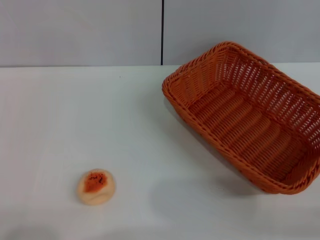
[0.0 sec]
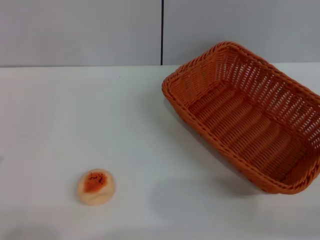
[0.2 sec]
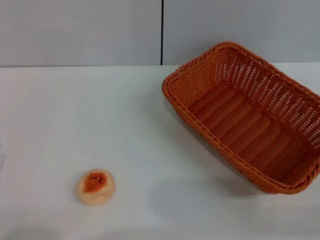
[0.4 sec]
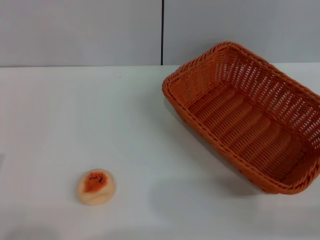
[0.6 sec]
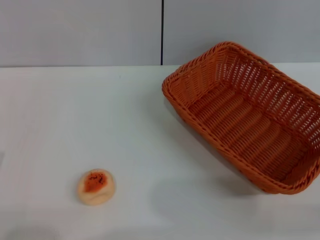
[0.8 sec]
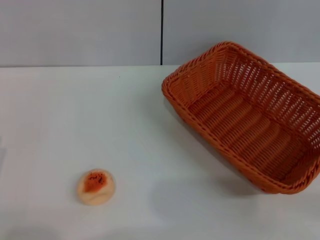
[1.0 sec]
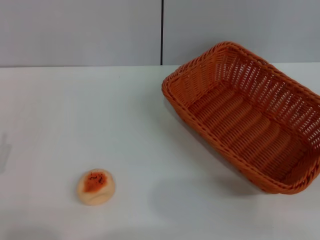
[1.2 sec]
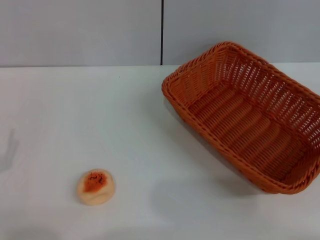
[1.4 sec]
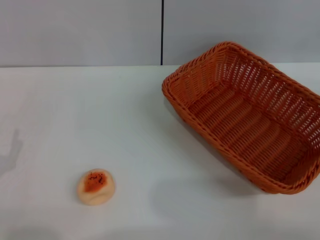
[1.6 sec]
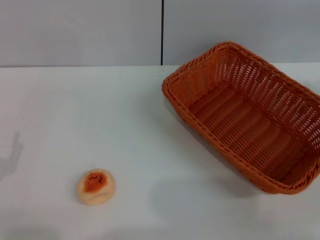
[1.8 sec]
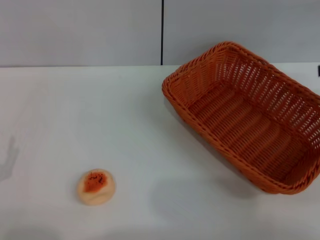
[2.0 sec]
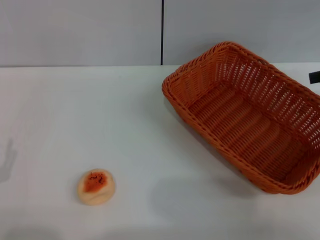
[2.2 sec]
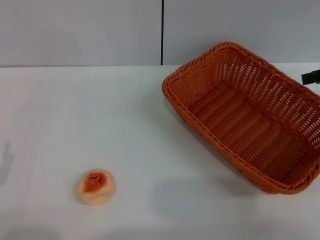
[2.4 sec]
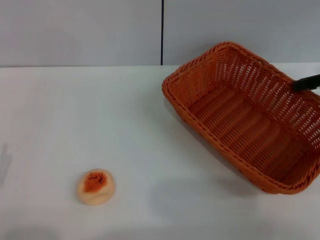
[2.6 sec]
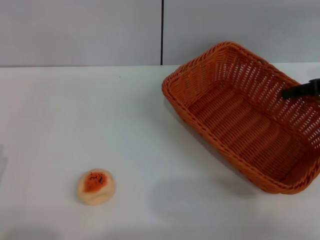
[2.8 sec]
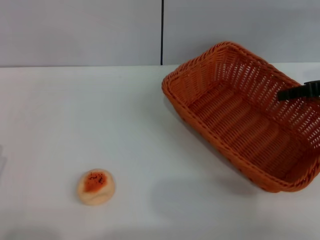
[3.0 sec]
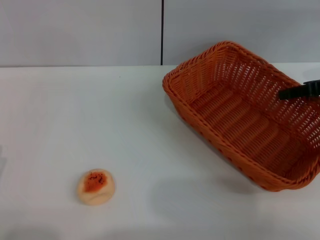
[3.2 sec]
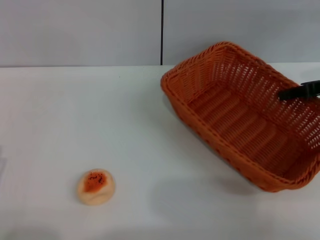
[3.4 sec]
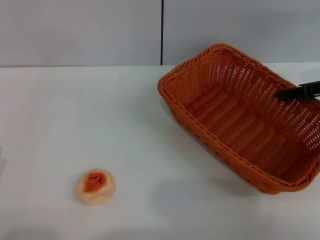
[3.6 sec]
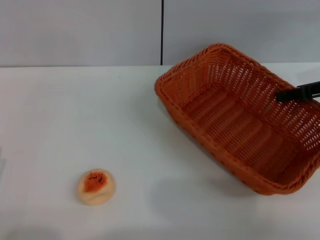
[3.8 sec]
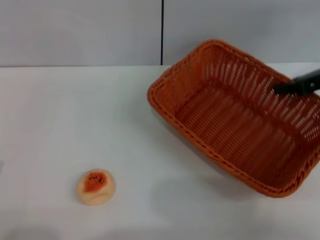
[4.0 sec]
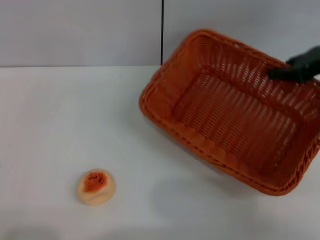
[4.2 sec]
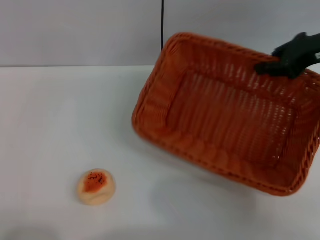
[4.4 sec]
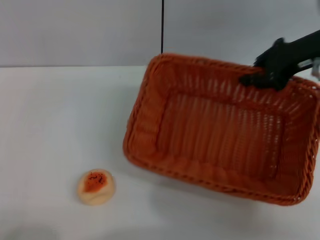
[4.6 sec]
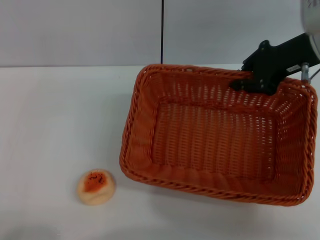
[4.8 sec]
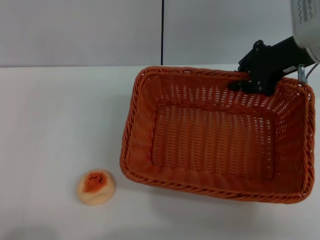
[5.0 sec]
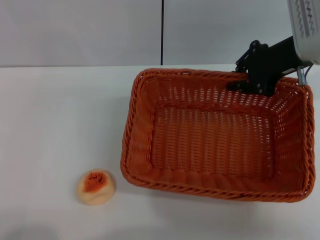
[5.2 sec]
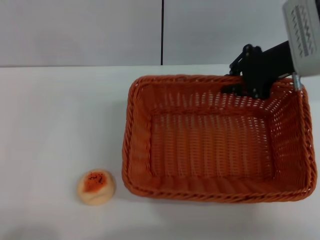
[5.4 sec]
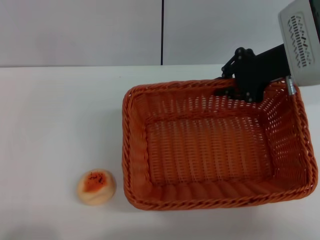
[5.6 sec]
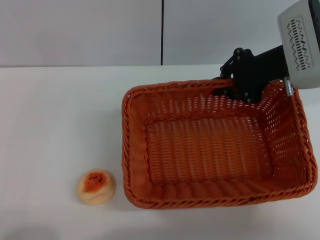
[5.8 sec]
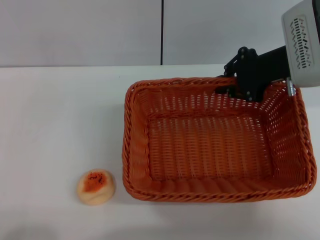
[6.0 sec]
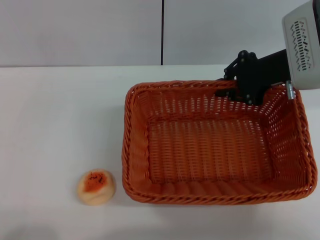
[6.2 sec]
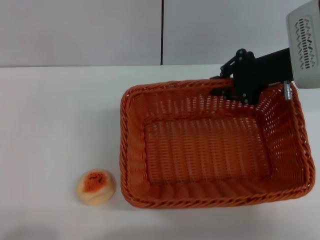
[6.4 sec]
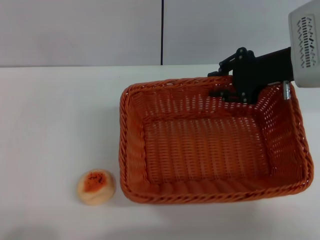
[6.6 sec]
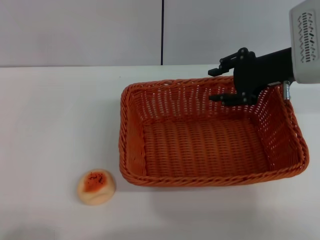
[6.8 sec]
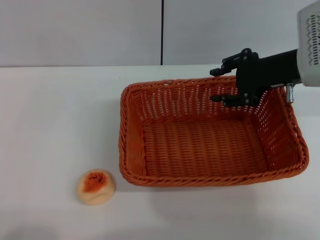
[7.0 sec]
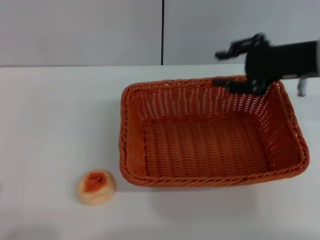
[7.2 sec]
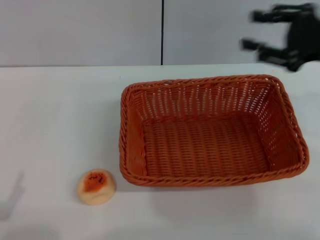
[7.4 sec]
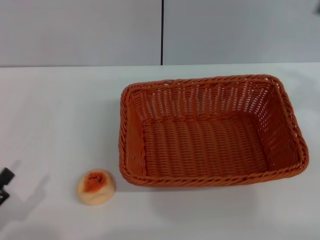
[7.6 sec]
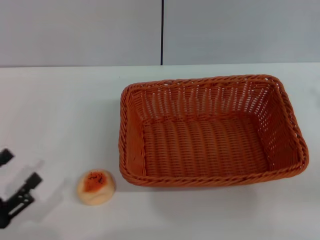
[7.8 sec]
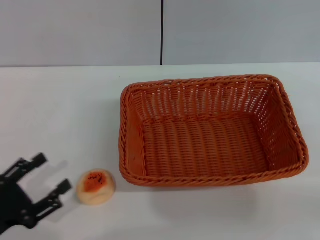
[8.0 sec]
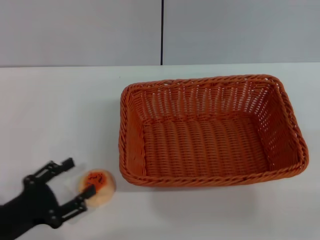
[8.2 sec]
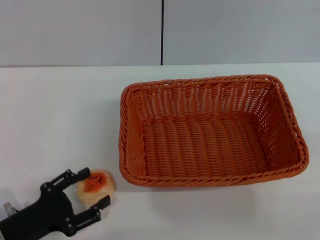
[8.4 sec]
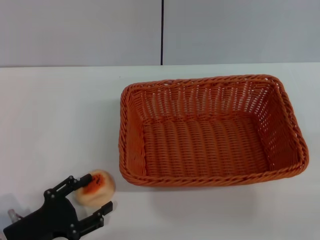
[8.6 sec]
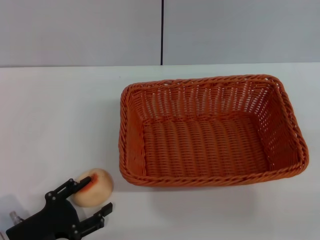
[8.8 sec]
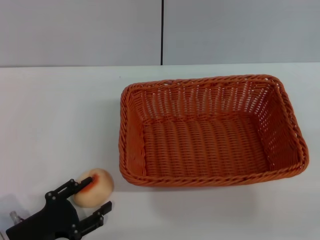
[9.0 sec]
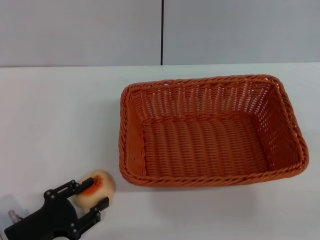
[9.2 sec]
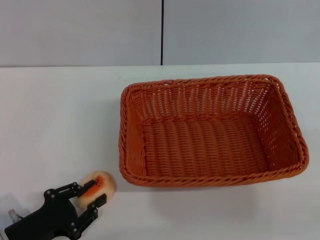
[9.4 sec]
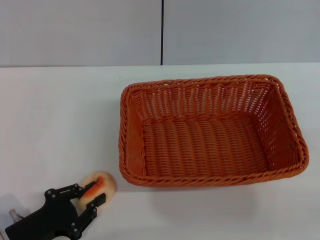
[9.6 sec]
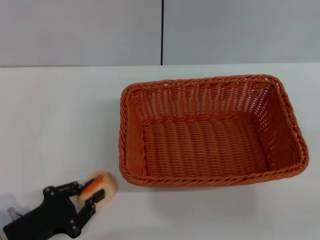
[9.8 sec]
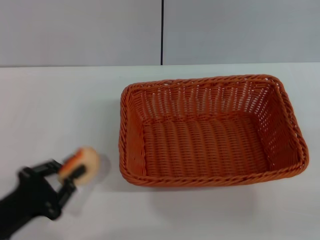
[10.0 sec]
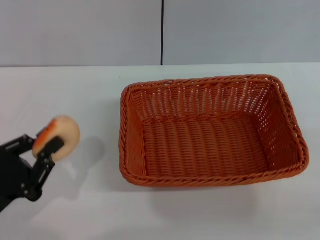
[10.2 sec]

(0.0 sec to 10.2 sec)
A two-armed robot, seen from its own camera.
Step, 0.0 sec - 7.0 sec: Move the basket to the center of view with the right gripper.
Step, 7.2 sec - 9.8 sec: Pick up the egg yolk pastry with the left gripper.
1.4 sec - 3.0 sec: The right gripper shifts approximately 15 cm to the left and forward.
3.0 sec - 4.4 sec: The right gripper heads upward and to the left, covering roughly 10 cm, and closes its fingers.
4.4 sec - 5.8 sec: The right gripper travels to the left by approximately 5 cm.
5.8 sec - 7.2 sec: The right gripper changes place by approximately 5 cm, and opens.
7.2 sec - 8.8 sec: The left gripper heads forward and to the right, covering approximately 10 cm. The right gripper is displaced backward and to the right by roughly 25 cm.
8.8 sec - 10.2 sec: The left gripper shifts about 5 cm upward, and closes up.

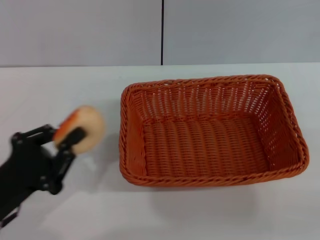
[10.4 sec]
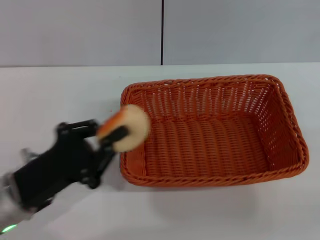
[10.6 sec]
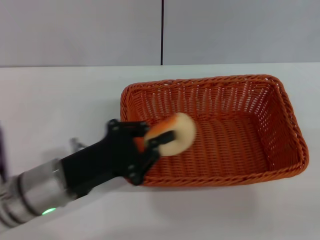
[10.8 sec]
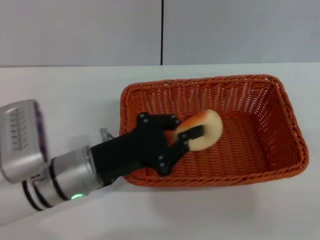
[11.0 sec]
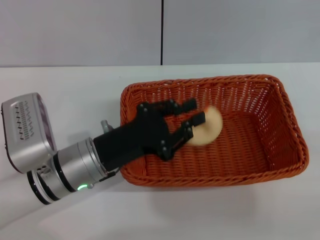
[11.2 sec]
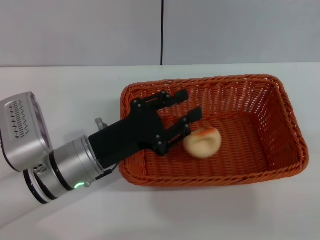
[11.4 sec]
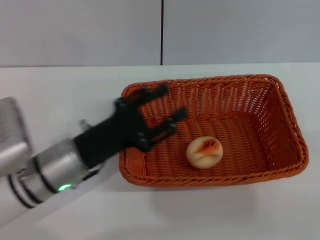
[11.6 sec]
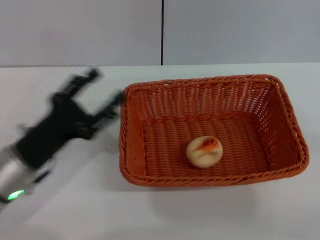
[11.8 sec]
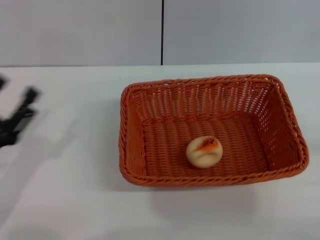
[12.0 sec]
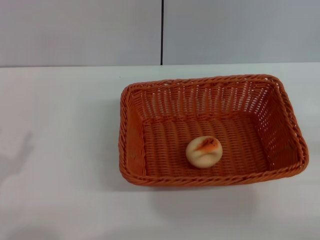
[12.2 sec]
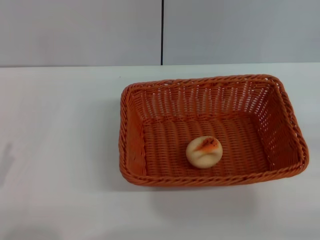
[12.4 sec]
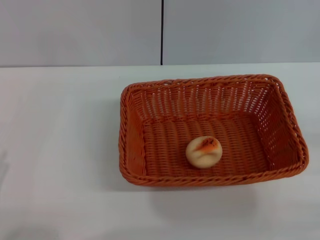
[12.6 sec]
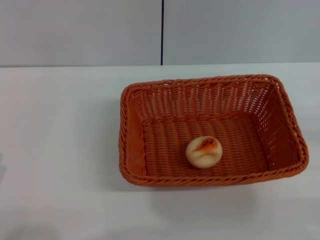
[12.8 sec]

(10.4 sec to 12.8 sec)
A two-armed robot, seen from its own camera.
Step, 10.4 sec - 11.6 sec: Place the egg yolk pastry into the basket with the left gripper.
10.4 sec - 11.6 sec: The left gripper goes some 10 cm to the right and forward.
11.6 sec - 12.8 sec: The left gripper heads backward and to the left, covering about 20 cm, and opens its fingers, while the right gripper is displaced downward by about 5 cm.
